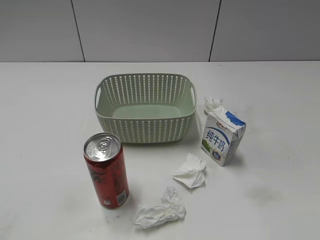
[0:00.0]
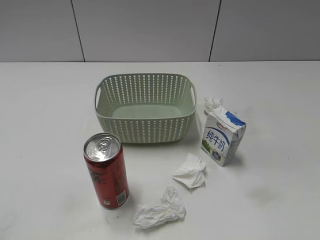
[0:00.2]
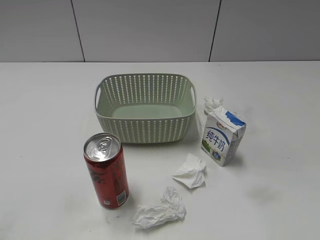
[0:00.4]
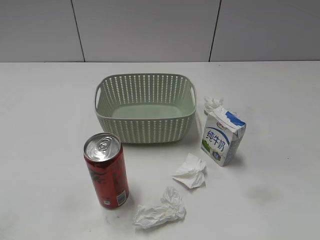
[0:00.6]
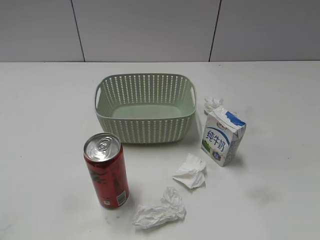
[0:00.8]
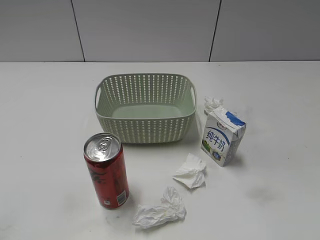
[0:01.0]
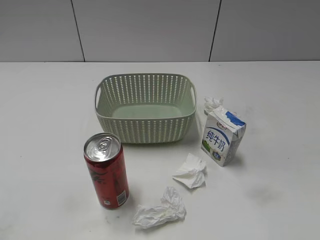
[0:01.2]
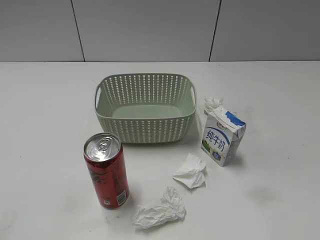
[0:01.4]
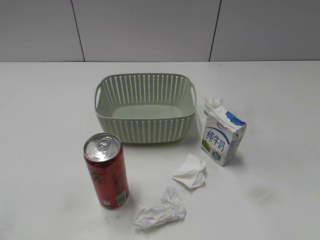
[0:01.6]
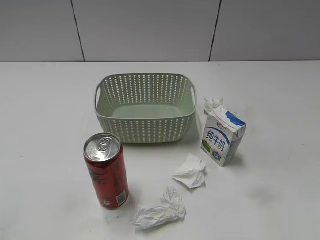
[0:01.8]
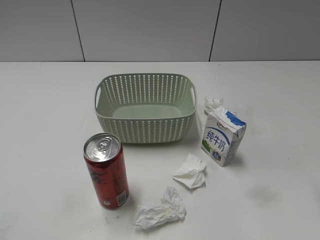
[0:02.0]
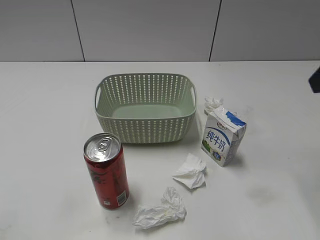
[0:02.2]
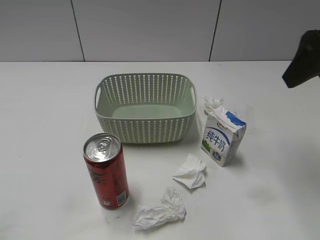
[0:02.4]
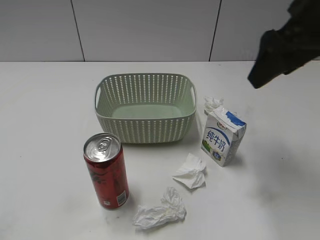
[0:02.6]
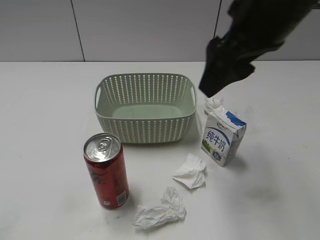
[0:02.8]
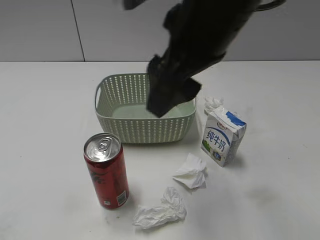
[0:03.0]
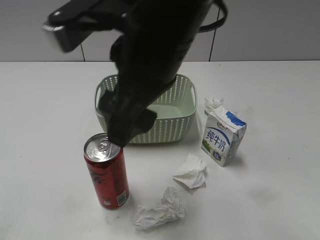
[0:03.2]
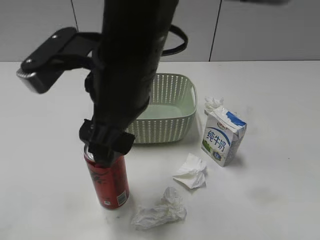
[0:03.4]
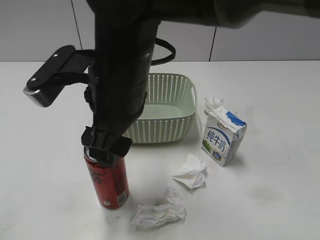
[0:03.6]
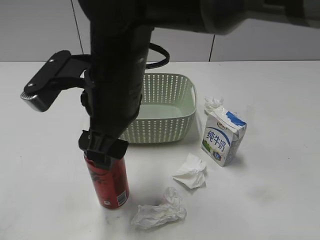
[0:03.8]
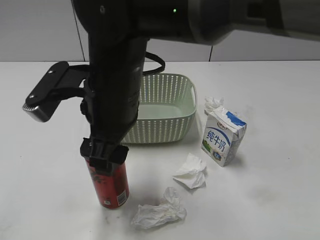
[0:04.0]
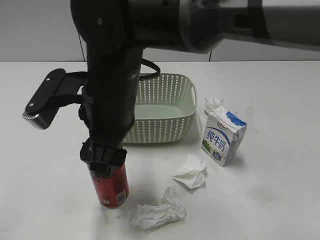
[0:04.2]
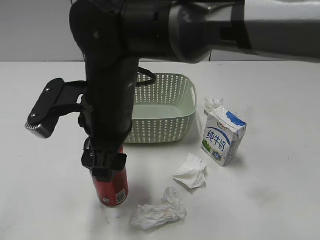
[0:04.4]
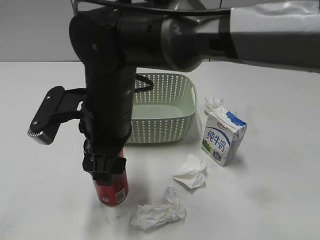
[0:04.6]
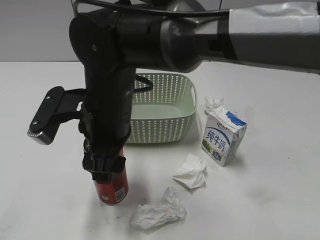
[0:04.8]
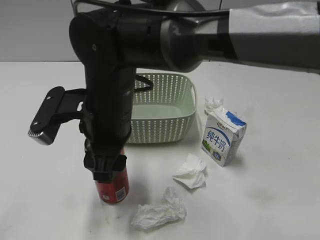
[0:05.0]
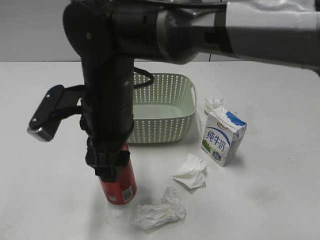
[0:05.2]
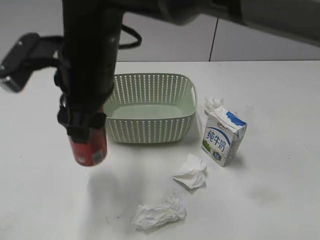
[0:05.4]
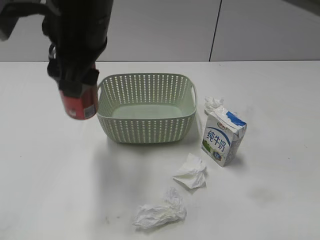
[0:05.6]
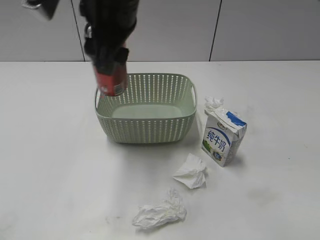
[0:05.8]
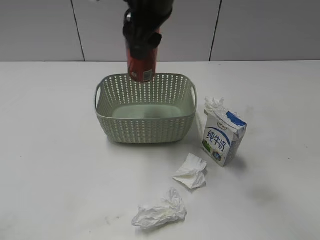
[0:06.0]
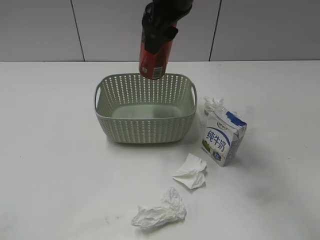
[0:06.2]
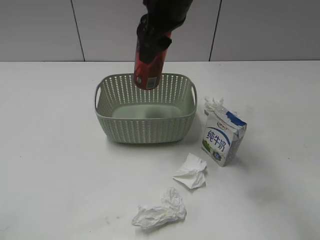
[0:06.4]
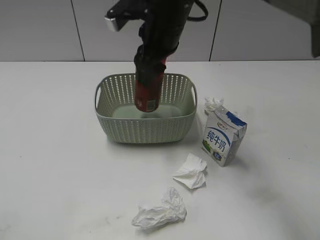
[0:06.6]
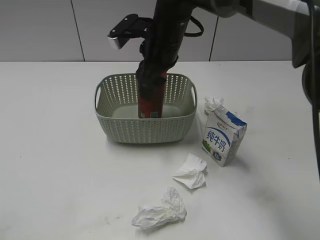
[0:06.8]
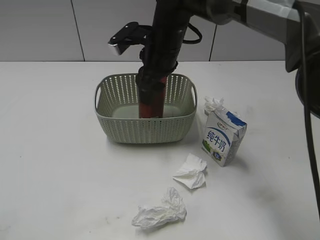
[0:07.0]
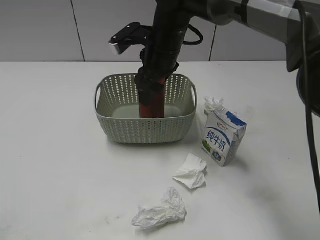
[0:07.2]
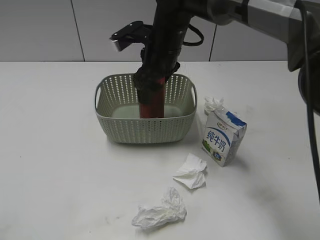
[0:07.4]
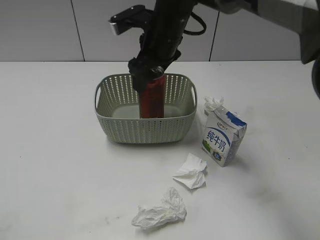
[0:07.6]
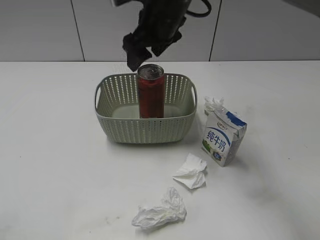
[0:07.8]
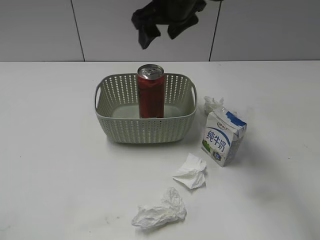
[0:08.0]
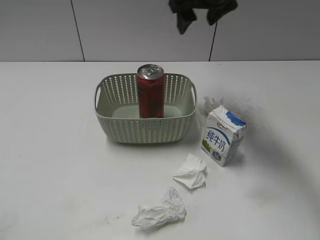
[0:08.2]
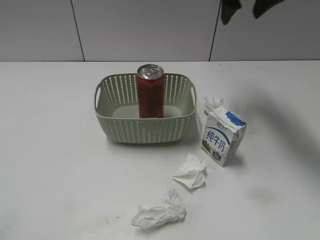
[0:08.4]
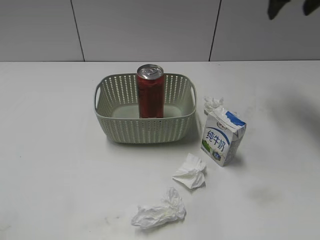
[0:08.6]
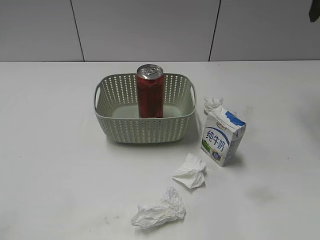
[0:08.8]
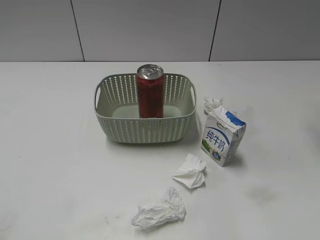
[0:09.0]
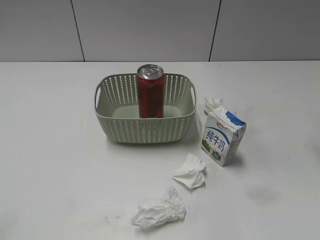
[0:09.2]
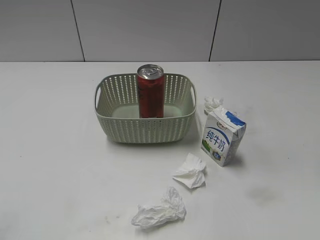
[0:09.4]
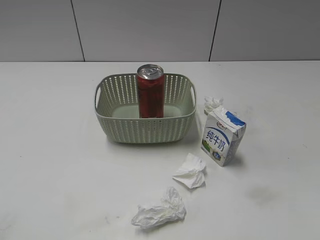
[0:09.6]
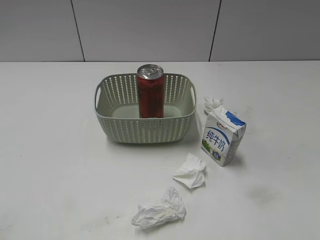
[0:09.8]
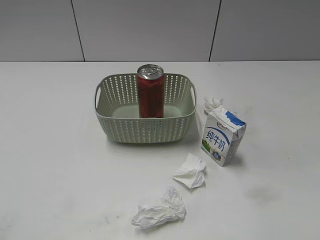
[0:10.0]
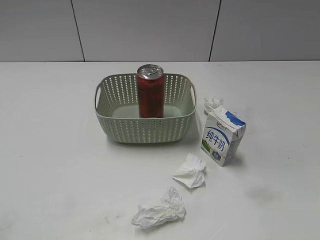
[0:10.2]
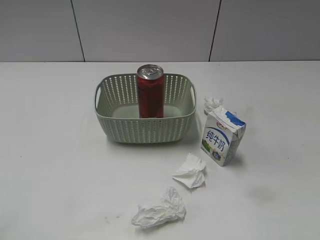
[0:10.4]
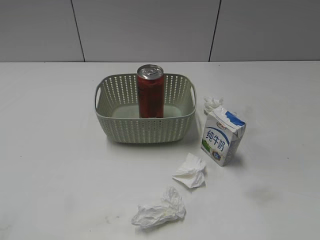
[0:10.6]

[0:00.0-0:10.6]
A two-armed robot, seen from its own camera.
Step, 0:02.2 to 0:04.8: Grasp the cola can with right gripper.
Step, 0:05.0 to 0:07.8: Place the cola can in the basket with right gripper.
0:01.6 to 0:03.0: The right gripper heads to the left and forward, covering approximately 30 cm.
0:03.0 to 0:04.6: The right gripper goes about 20 cm downward and to the left.
0:04.6 to 0:06.0: The right gripper travels upward, forward and to the right by approximately 15 cm, and closes up.
0:06.0 to 0:07.6: The right gripper moves downward and forward, about 10 cm, and opens up.
0:07.6 to 0:09.0: The right gripper moves to the right and upward, approximately 30 cm.

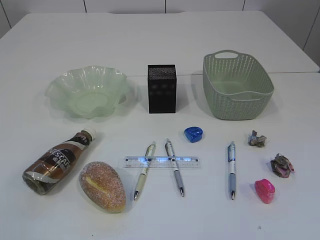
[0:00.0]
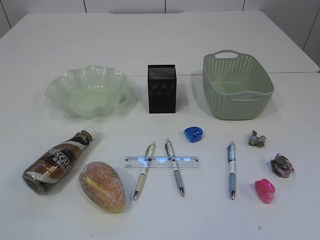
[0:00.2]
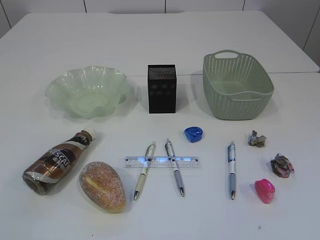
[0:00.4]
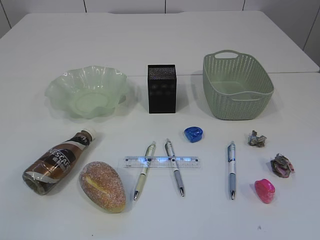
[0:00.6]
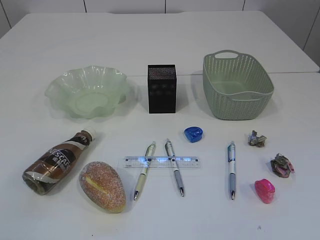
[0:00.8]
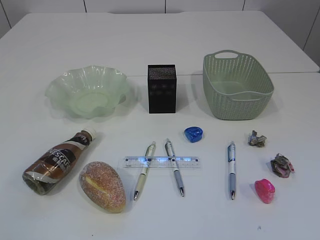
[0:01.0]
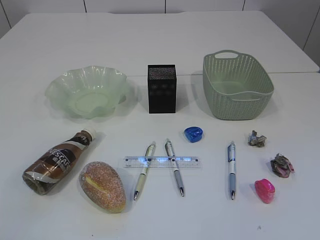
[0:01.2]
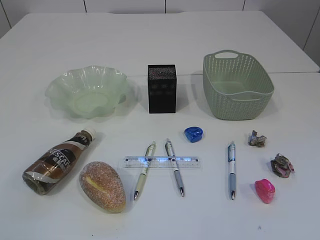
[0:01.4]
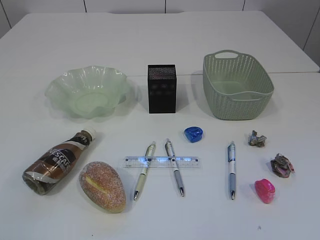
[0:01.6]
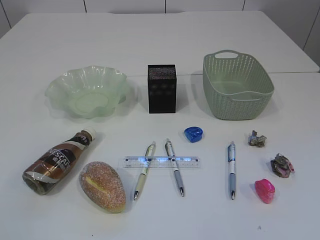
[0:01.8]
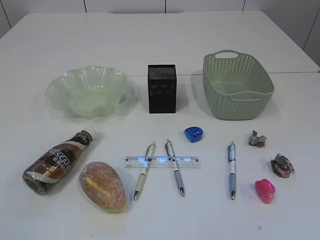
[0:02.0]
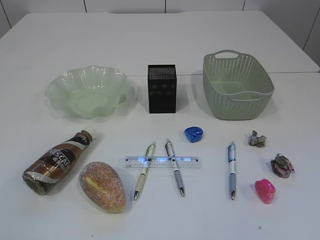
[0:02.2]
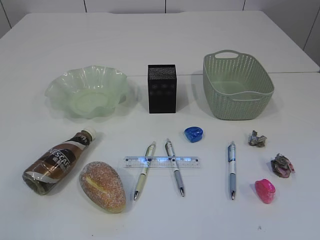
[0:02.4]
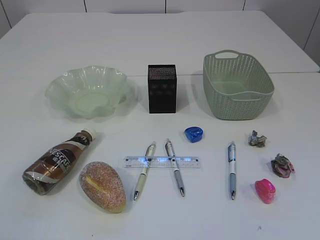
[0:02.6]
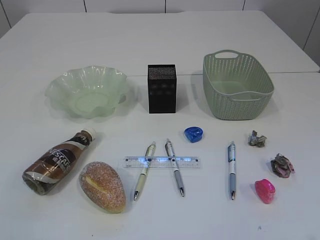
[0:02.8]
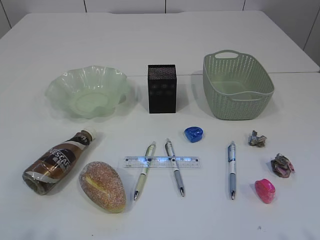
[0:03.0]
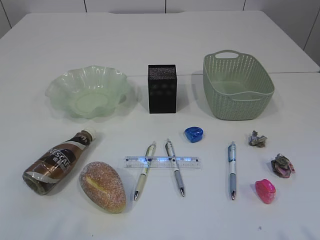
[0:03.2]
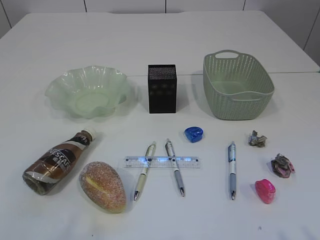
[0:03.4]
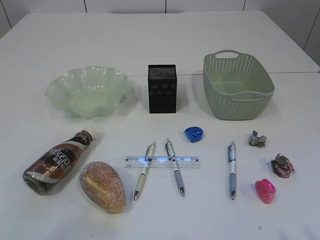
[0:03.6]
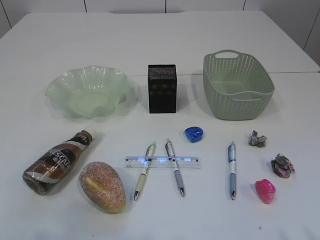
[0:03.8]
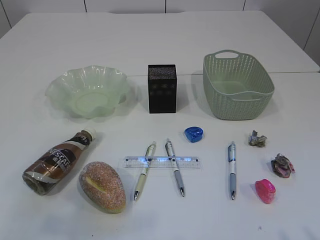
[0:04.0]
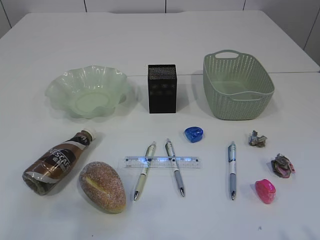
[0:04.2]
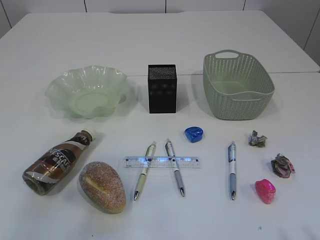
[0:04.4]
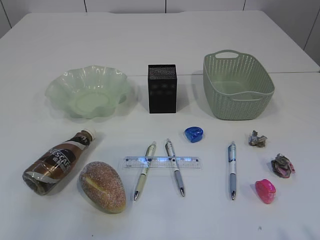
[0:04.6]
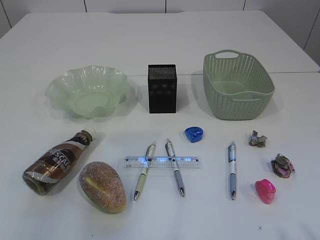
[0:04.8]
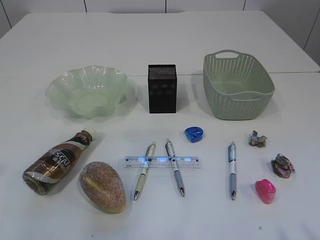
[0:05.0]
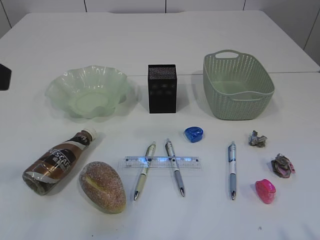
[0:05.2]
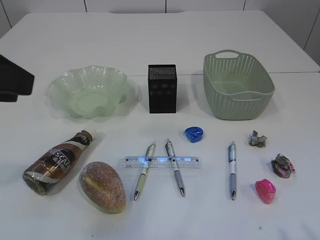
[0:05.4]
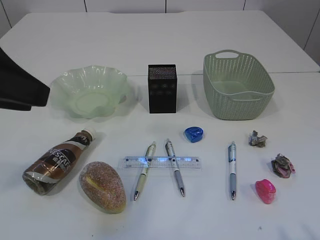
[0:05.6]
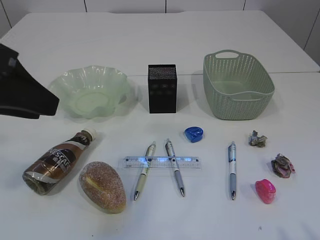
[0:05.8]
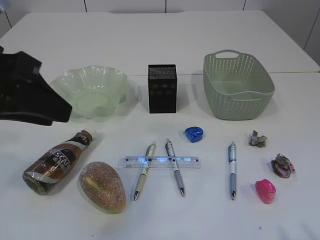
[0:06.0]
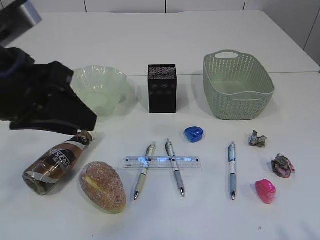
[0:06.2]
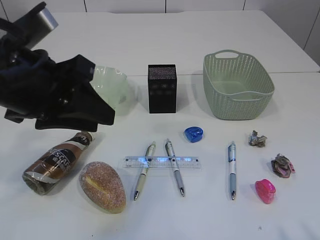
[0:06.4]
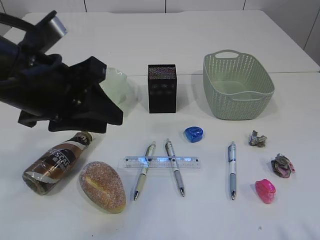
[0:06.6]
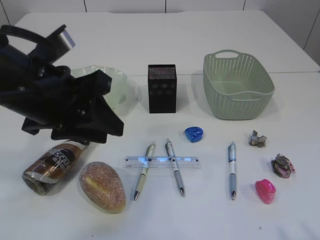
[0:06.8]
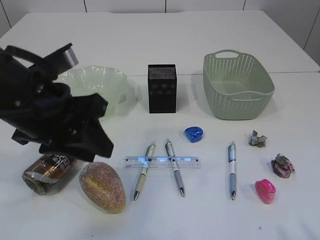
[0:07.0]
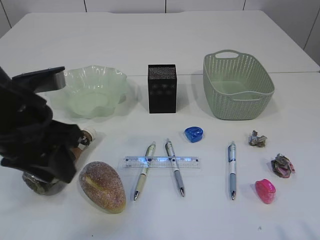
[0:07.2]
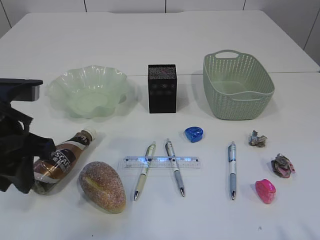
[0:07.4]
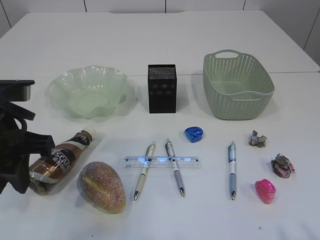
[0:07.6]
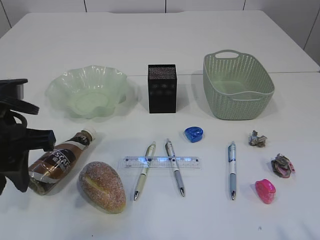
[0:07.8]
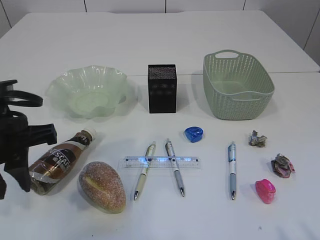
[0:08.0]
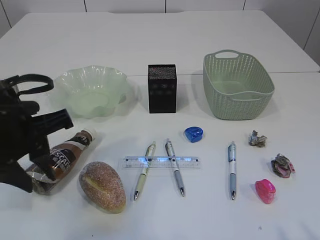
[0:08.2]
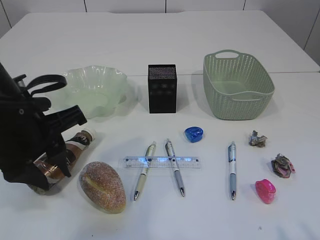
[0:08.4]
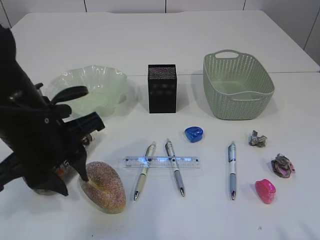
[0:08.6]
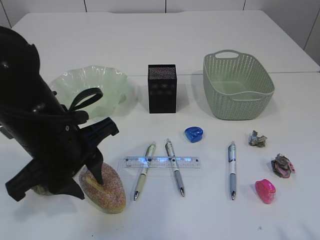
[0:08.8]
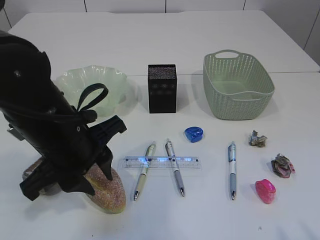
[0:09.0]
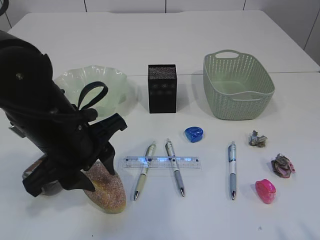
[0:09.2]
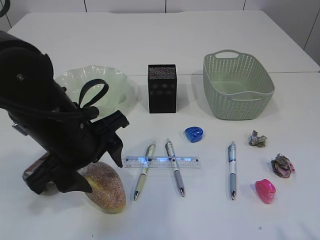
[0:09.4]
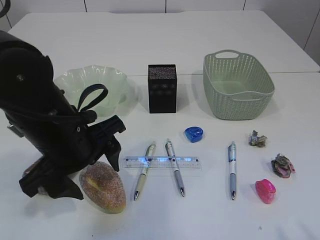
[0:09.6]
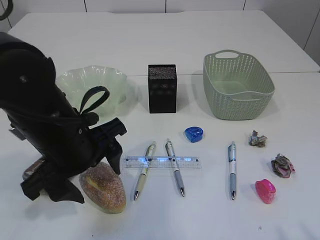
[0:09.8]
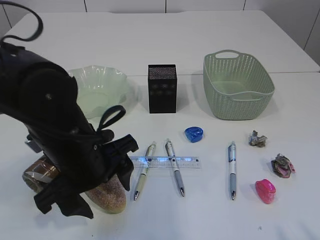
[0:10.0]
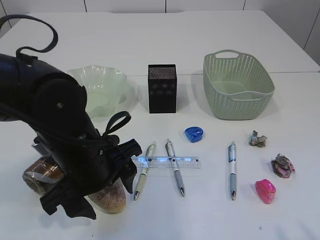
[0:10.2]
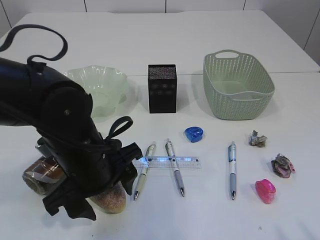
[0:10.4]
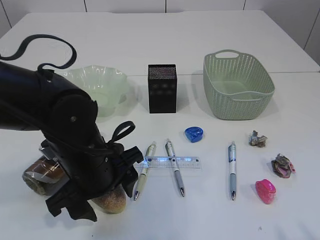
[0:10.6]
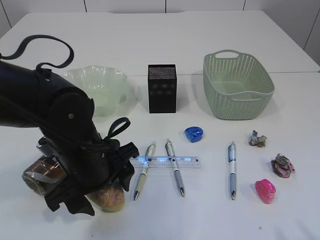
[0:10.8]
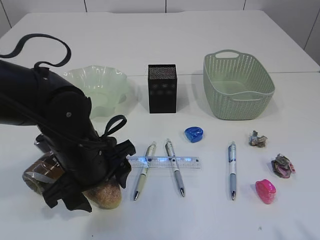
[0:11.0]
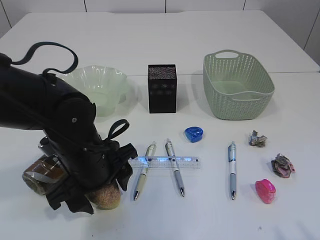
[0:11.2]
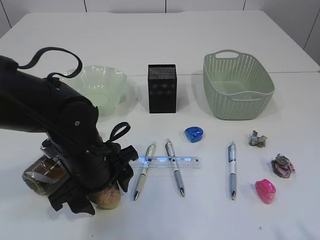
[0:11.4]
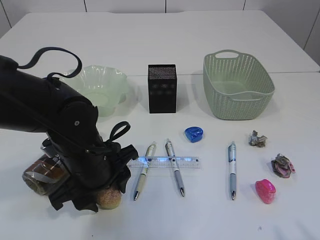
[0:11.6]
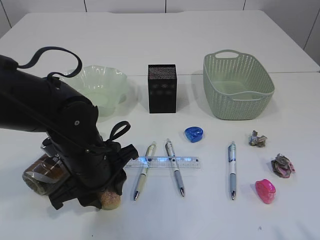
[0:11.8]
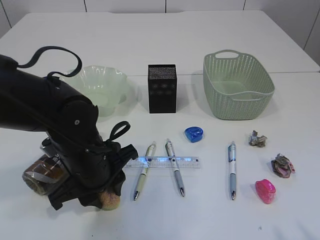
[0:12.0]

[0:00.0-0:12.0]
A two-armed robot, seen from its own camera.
0:03.0 to 0:04.4: The left gripper is displaced forward and upward by roughly 15 cm.
0:04.4 to 0:06.0: The left gripper moves forward and to the right, approximately 15 cm.
0:06.0 to 0:07.6: The left gripper heads downward, covering approximately 5 cm.
0:07.6 to 0:09.0: The left gripper goes some 10 cm to the right.
0:09.0 to 0:10.4: The left gripper ends up some 5 cm from where it was, and opens.
0:10.4 to 0:12.0: The left gripper closes.
